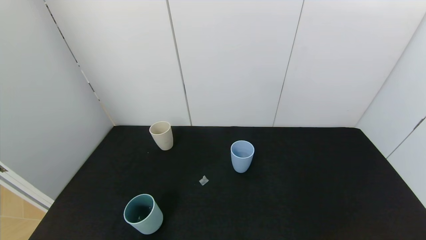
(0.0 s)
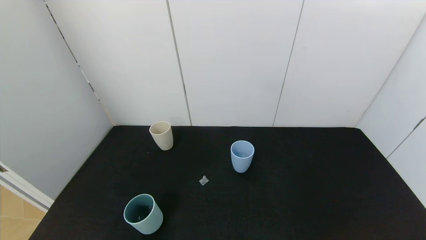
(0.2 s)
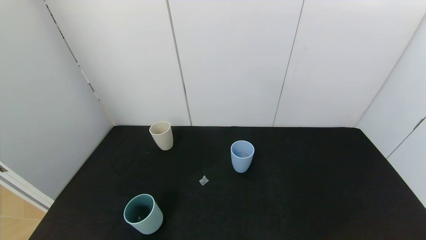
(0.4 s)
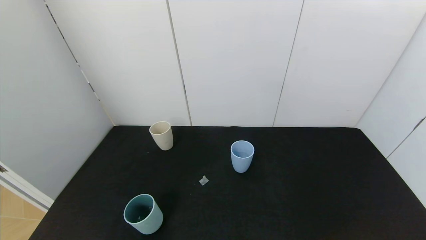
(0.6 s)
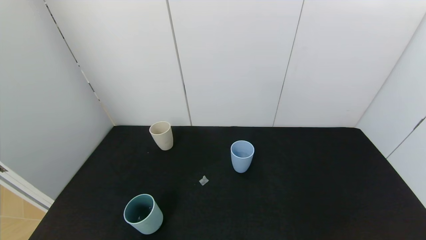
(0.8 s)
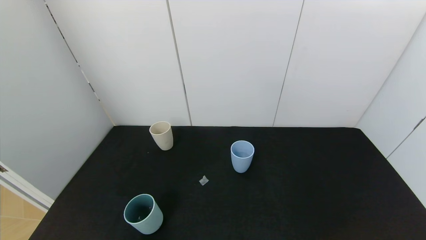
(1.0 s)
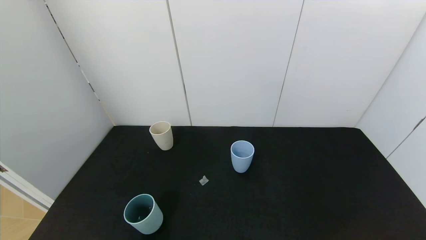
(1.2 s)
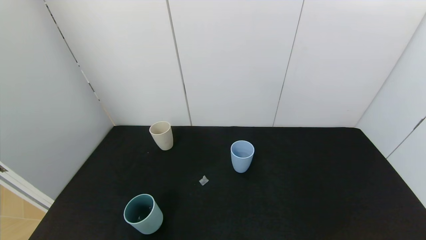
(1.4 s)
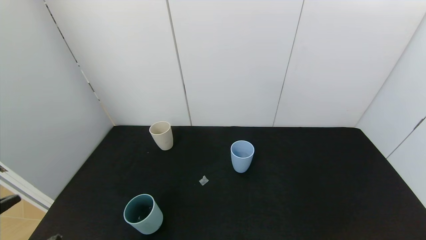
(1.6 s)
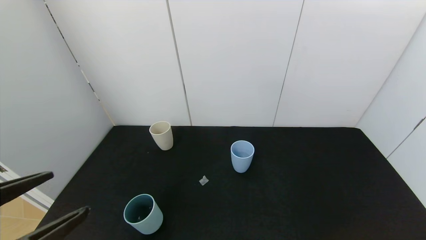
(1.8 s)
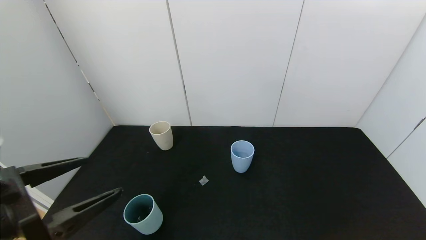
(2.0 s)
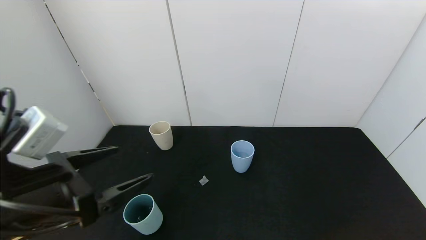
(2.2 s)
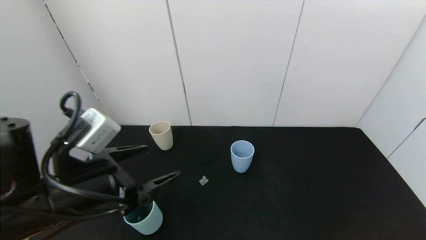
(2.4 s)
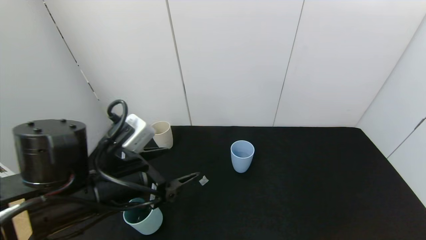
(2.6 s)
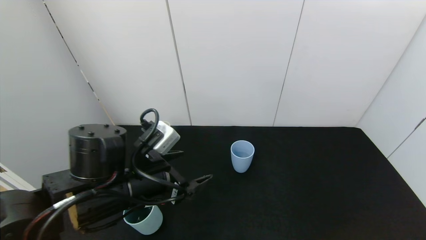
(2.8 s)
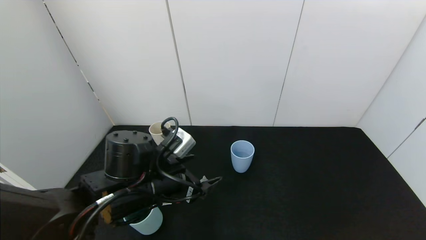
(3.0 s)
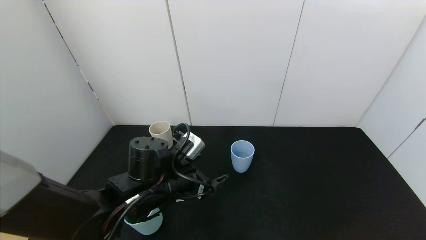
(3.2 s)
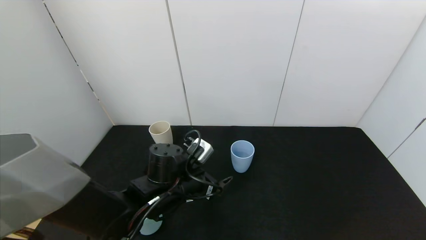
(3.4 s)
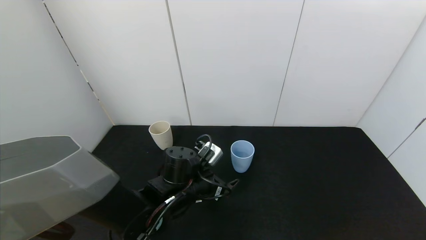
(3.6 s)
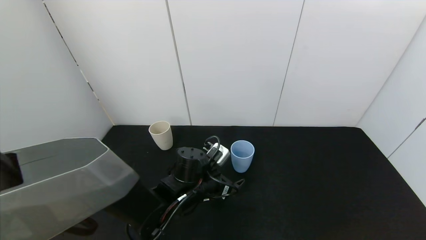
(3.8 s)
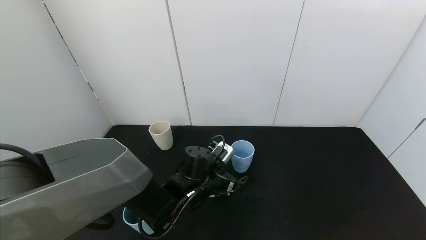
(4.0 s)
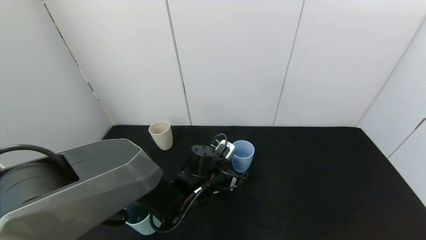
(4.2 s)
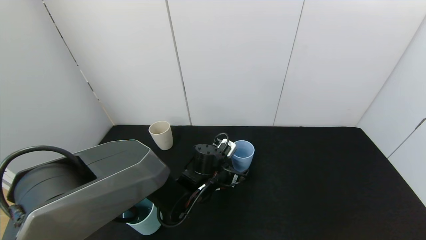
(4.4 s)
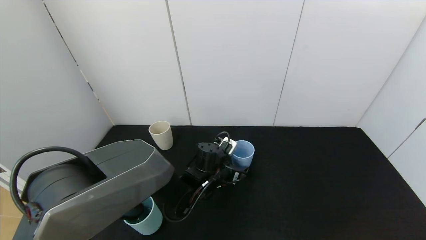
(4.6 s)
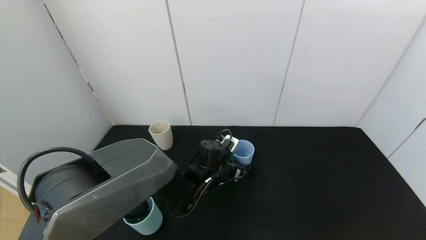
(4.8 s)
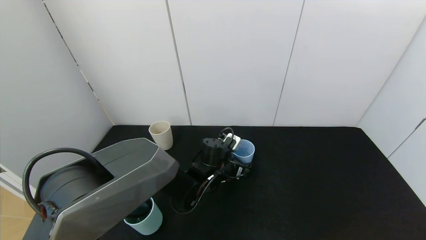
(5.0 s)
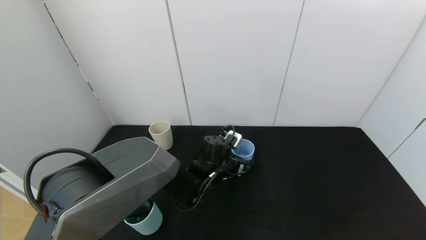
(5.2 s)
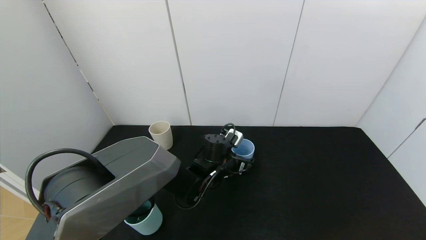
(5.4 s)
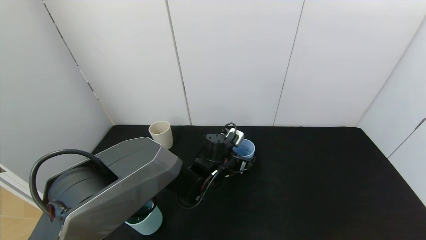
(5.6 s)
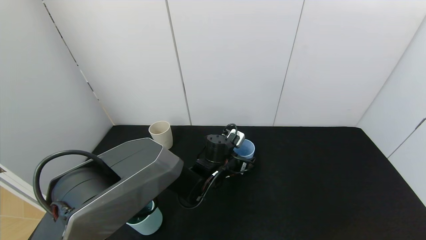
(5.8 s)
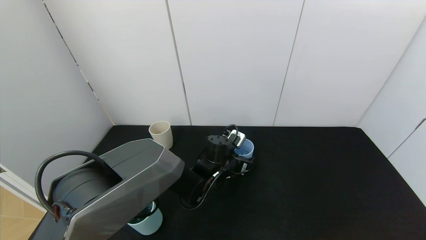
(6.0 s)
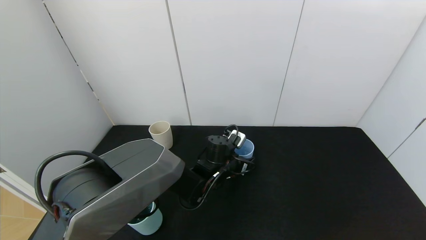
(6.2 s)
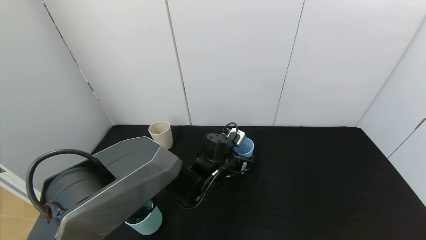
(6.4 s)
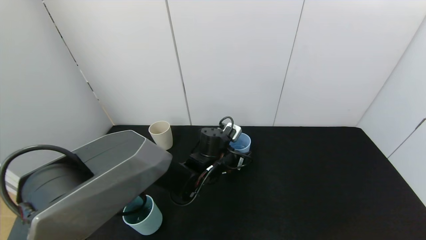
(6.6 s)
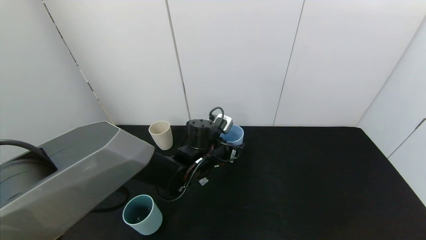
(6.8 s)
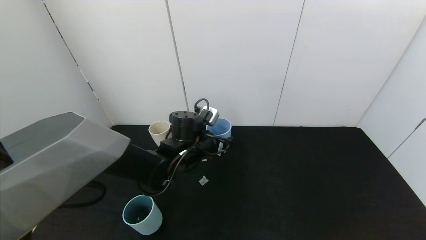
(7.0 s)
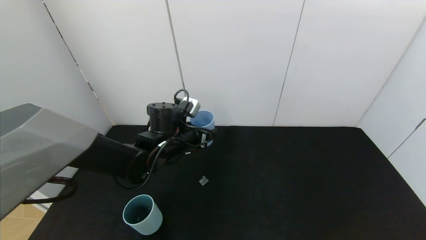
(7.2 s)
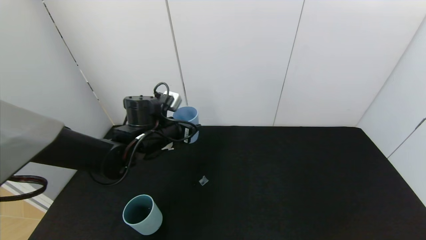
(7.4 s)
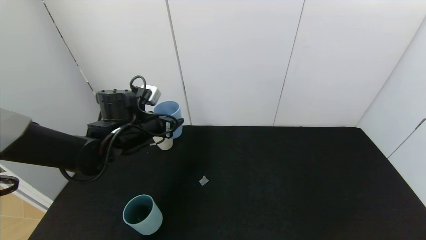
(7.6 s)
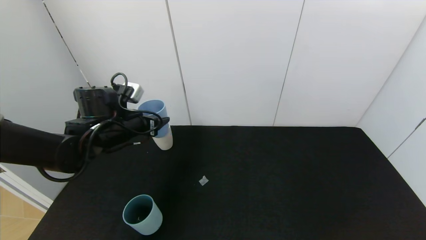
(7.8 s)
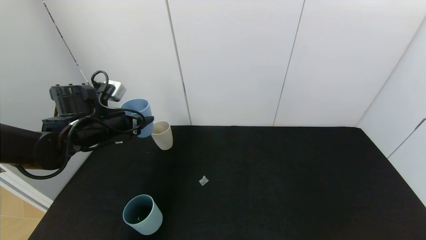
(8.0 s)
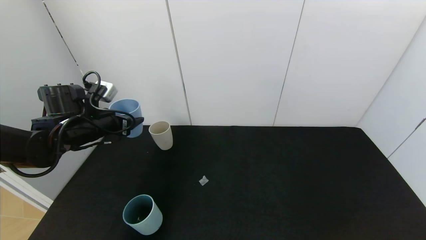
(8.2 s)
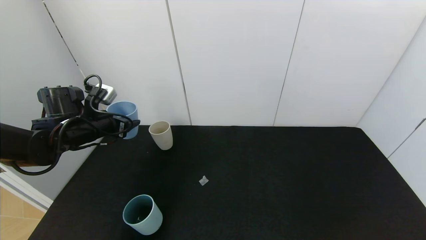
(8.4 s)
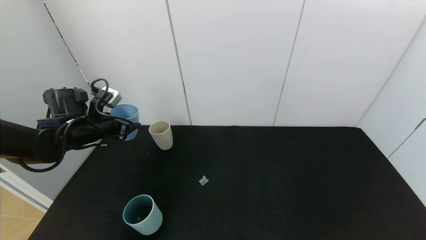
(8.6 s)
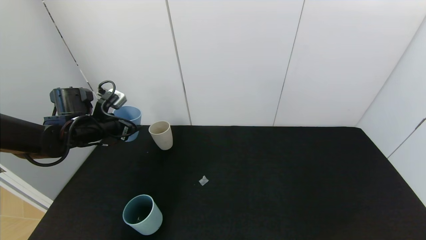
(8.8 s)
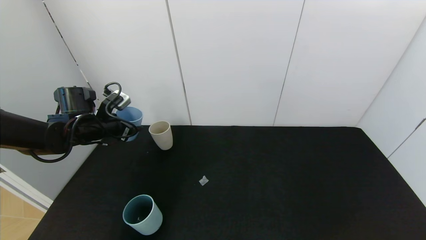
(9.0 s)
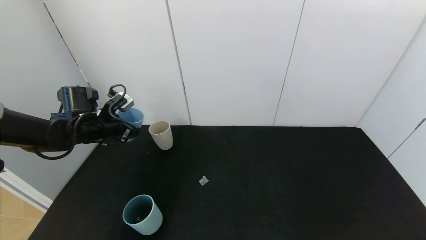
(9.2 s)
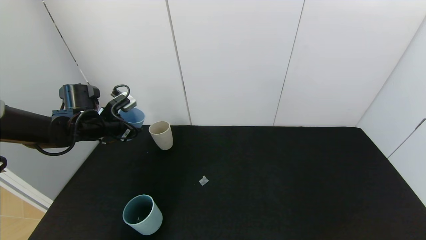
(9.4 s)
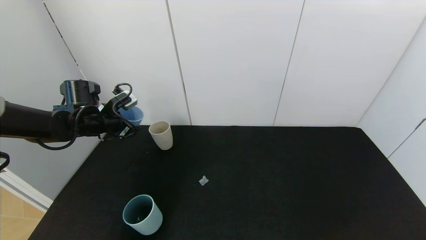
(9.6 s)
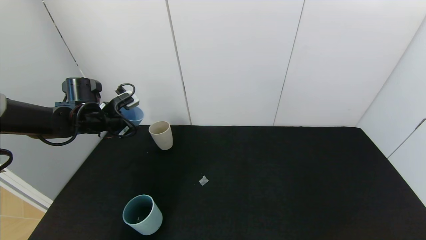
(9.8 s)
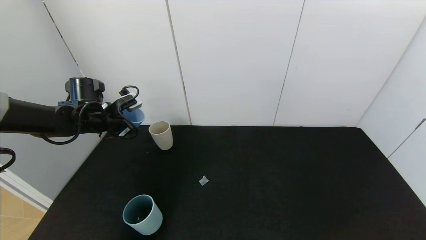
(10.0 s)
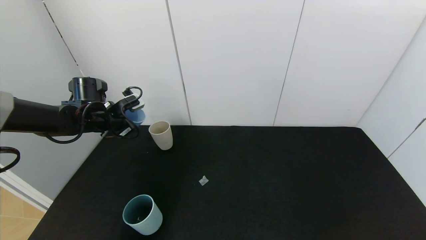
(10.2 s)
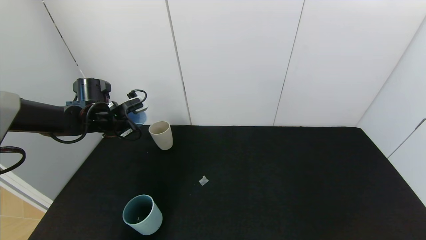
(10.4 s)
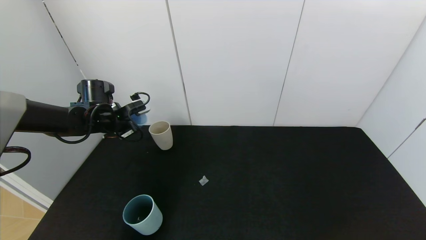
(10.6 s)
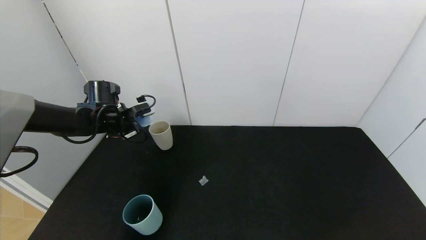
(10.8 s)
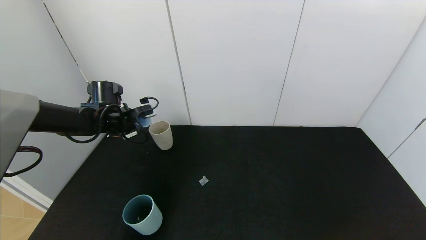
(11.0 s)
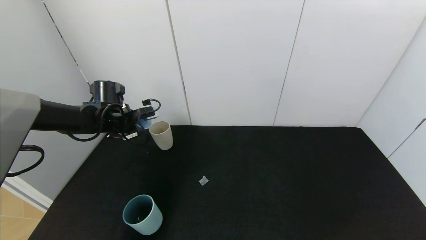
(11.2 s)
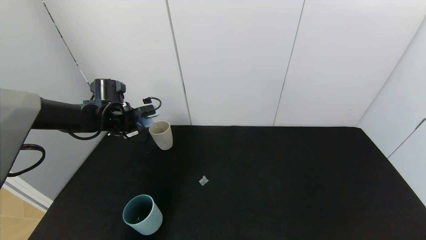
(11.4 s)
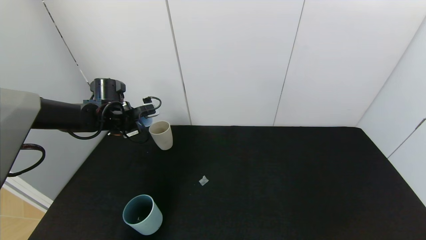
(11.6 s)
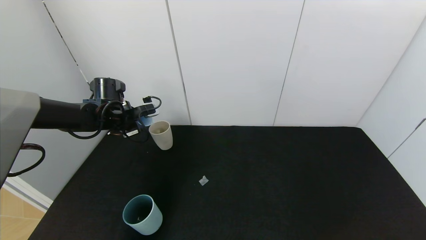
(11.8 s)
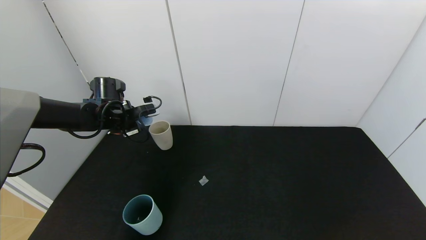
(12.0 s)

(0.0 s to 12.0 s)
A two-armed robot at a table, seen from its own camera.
Task of the whole recording: use the gripper to pour the water into the other two cups on black table.
Step, 0.0 s - 6.2 s: Grasp the blue cup with the left gripper.
1.6 s - 3.0 s: The left gripper heads forward and to the right, covering approximately 25 cm.
3.0 s - 4.4 s: The left gripper is displaced forward, downward and to the right by approximately 15 cm.
4.4 s - 6.0 s: The left gripper closes its fingers.
6.0 s - 7.6 s: The left gripper goes roughly 25 cm to the left and upward.
7.6 s - 9.0 s: The left gripper shifts about 10 cm to the left.
10.4 s - 12.0 s: The grippers make only small movements.

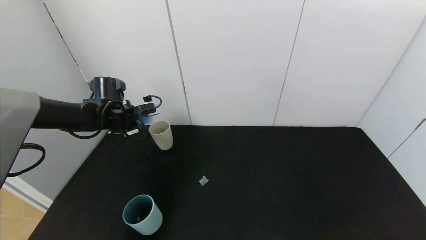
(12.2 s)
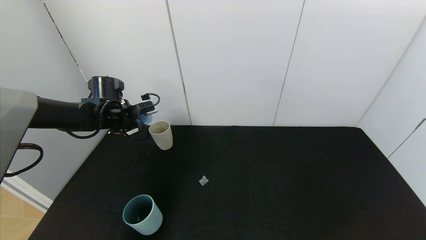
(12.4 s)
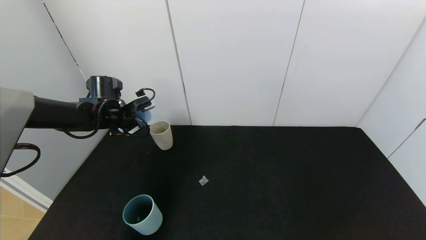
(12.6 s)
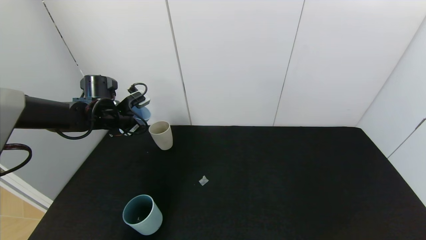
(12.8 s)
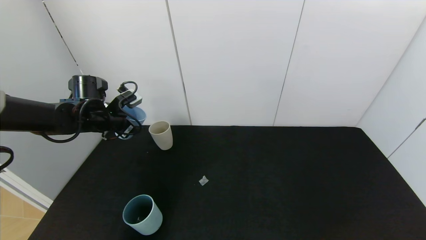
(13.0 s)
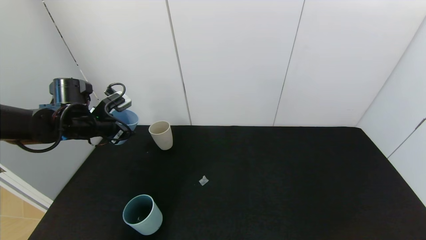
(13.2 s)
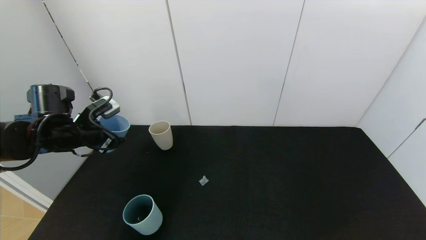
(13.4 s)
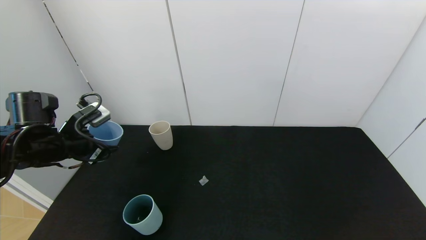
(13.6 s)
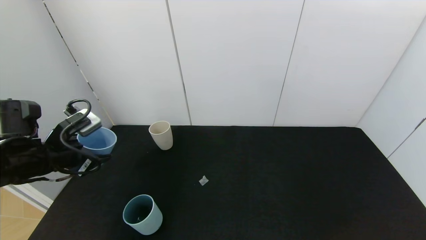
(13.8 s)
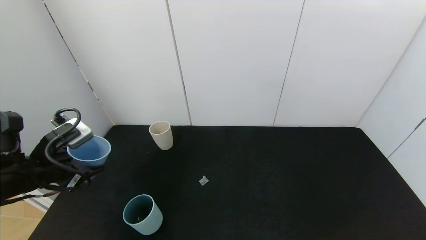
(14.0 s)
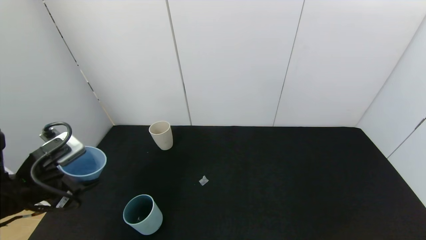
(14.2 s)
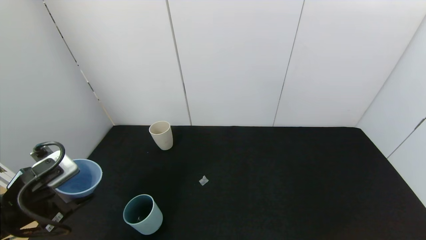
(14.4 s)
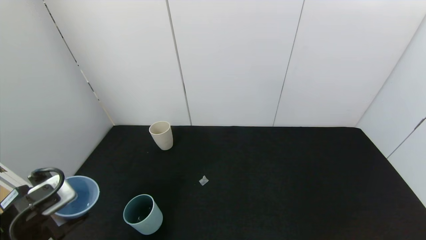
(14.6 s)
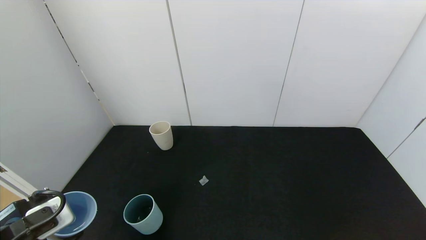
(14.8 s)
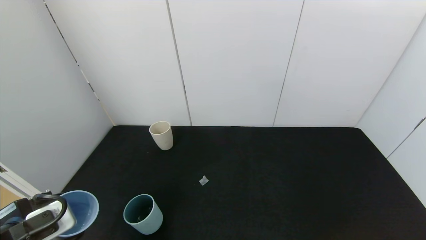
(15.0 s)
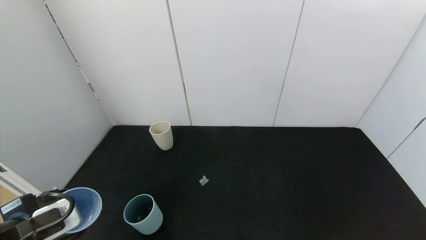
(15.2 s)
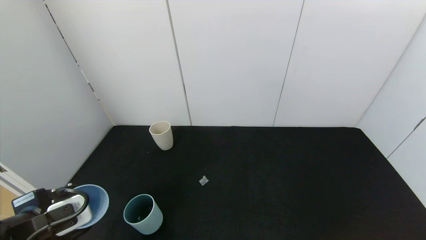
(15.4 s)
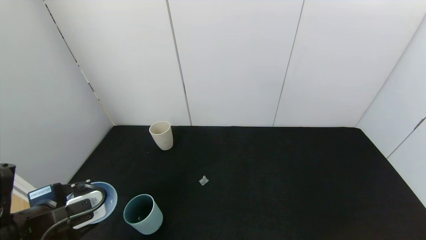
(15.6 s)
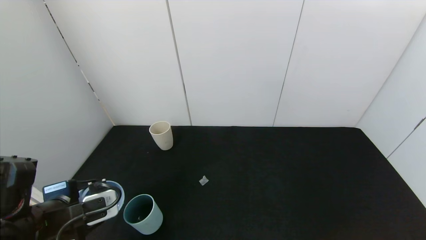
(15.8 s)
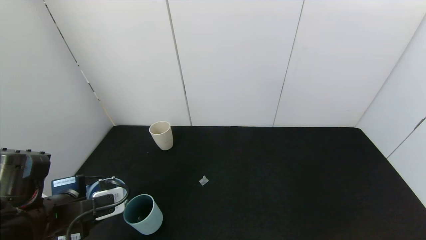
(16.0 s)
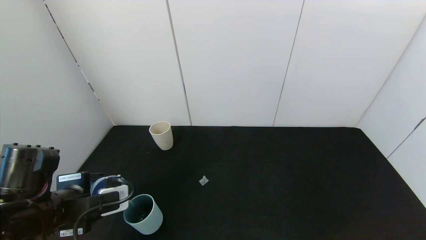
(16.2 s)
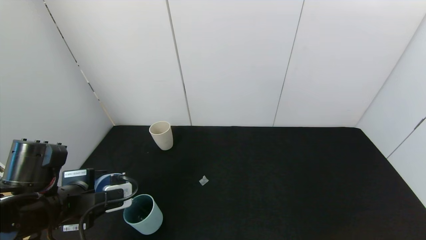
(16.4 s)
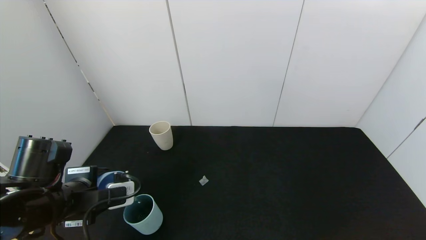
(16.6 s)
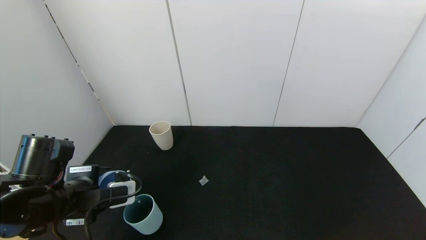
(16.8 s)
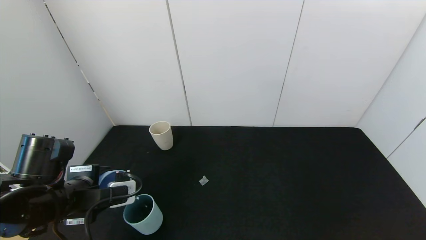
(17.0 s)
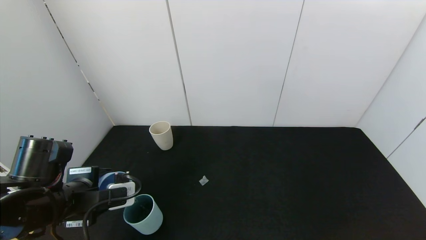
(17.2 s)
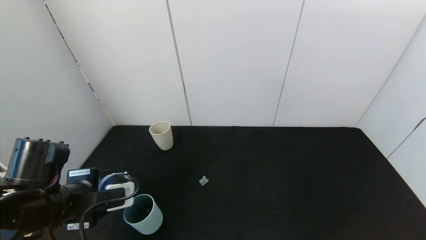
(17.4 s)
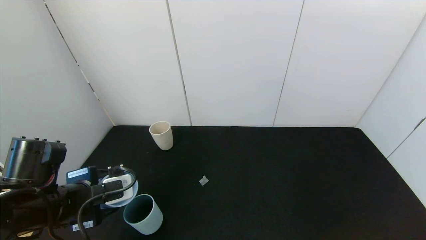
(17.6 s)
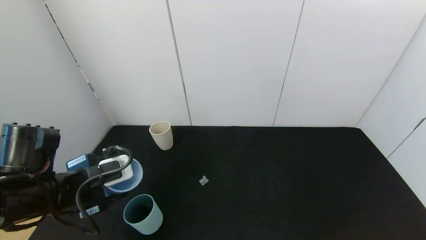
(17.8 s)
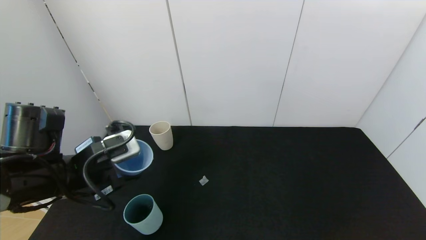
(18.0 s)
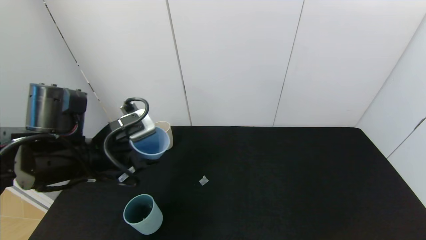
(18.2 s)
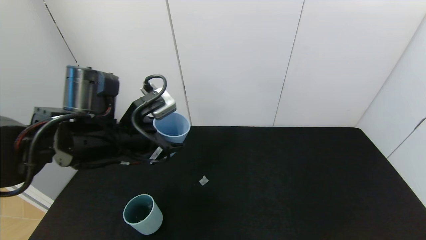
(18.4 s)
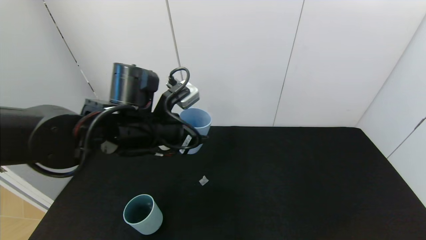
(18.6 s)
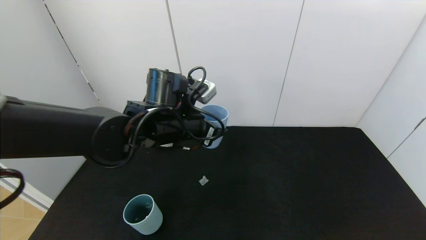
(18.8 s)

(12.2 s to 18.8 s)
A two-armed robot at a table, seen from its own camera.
Task of the whole recording: use the gripper to pour the water into the other two cups on black table.
Step, 13.0 s - 17.8 s: Pour water from blue cup to green cup with the left gripper.
12.2 s - 13.8 s: The left gripper moves backward, approximately 20 cm.
13.8 s - 15.4 s: The left gripper shifts about 15 cm backward.
15.4 s - 17.2 s: The left gripper goes about 5 cm forward.
17.2 s - 18.8 s: The left gripper moves to the right and forward, some 20 cm.
